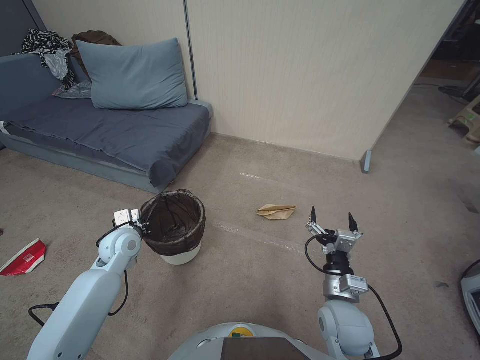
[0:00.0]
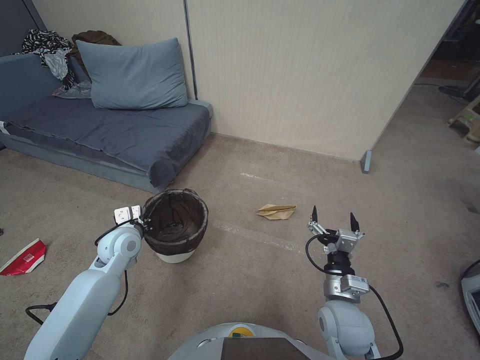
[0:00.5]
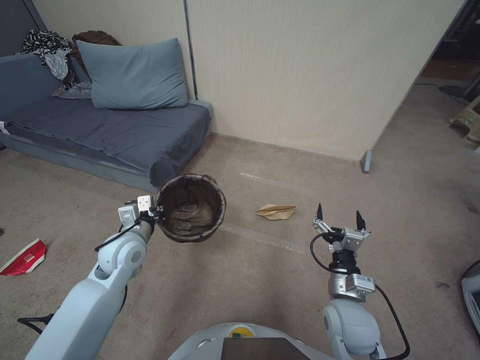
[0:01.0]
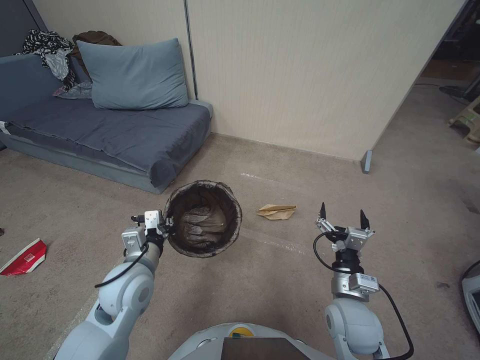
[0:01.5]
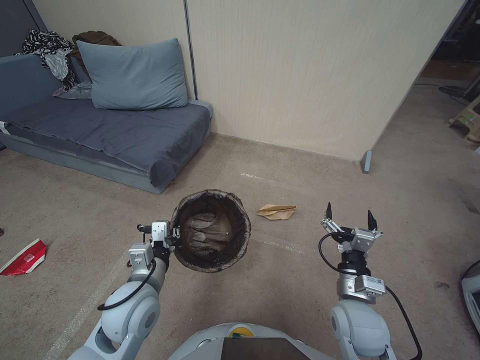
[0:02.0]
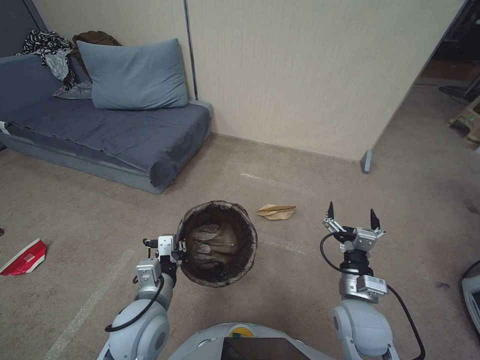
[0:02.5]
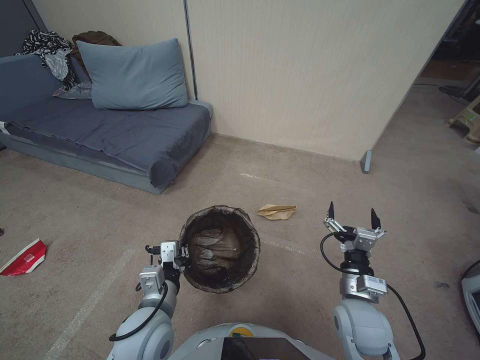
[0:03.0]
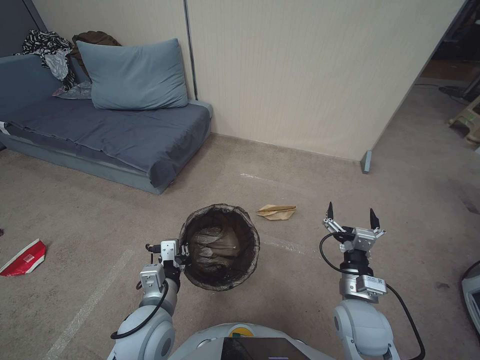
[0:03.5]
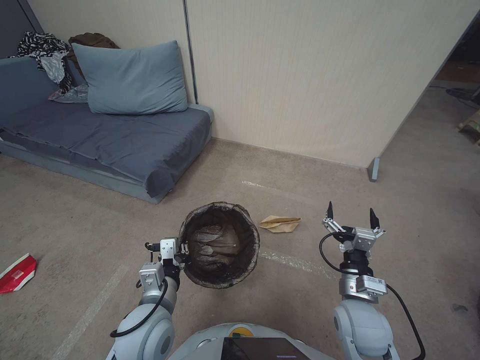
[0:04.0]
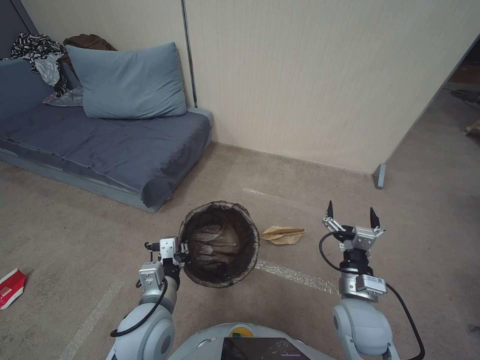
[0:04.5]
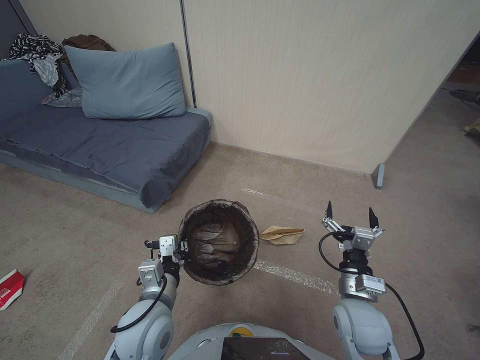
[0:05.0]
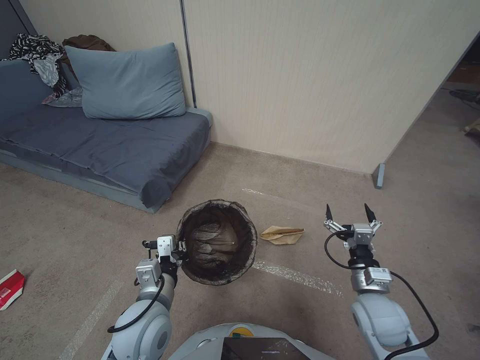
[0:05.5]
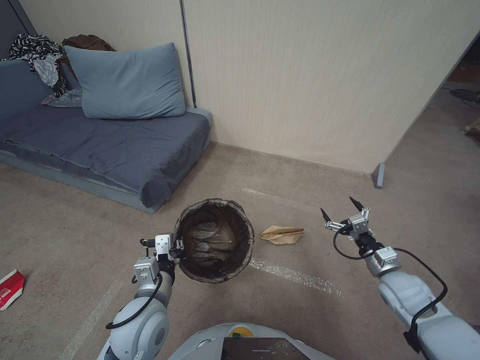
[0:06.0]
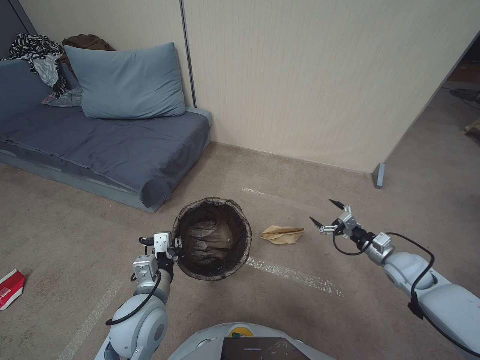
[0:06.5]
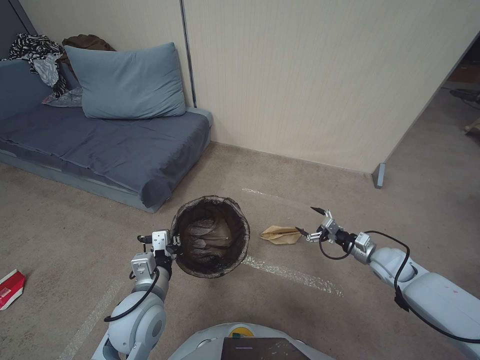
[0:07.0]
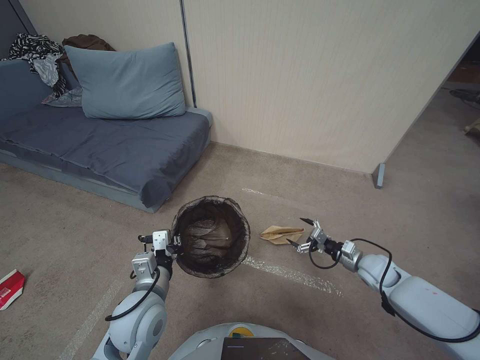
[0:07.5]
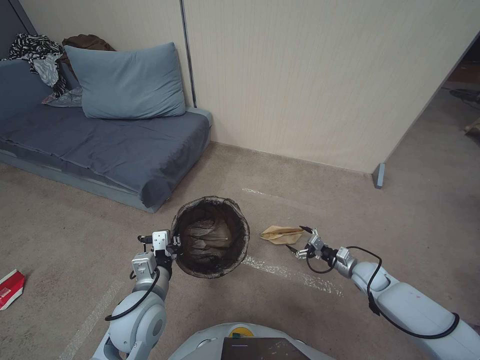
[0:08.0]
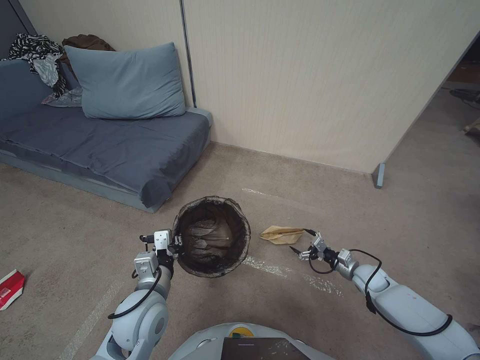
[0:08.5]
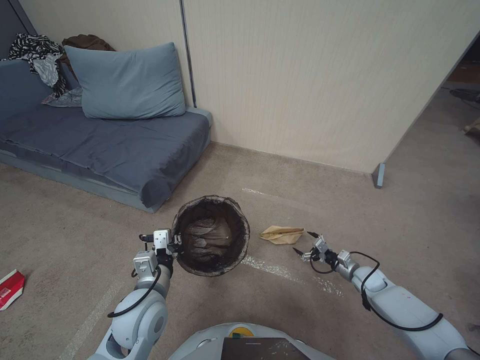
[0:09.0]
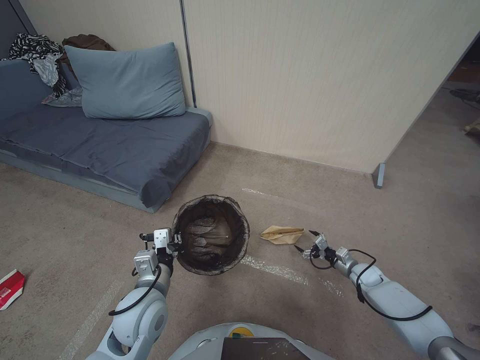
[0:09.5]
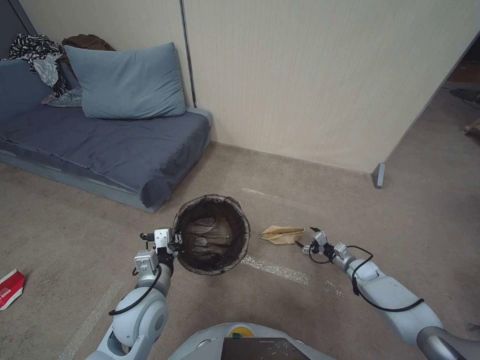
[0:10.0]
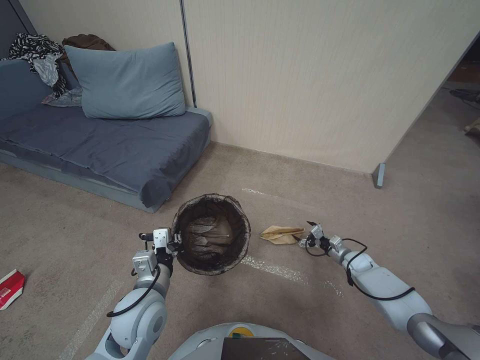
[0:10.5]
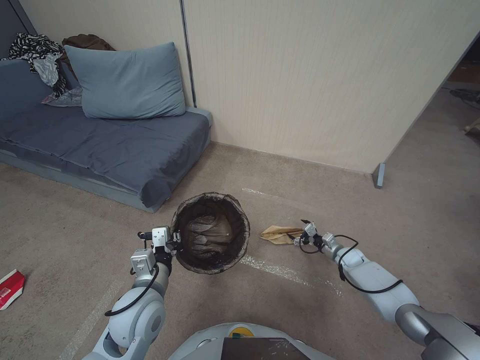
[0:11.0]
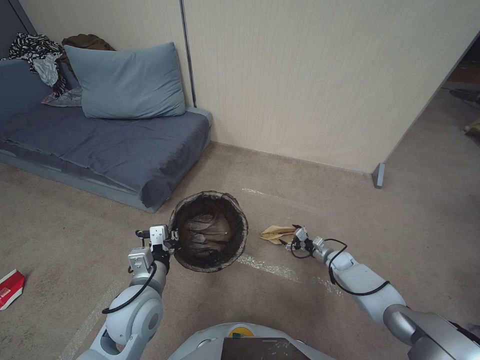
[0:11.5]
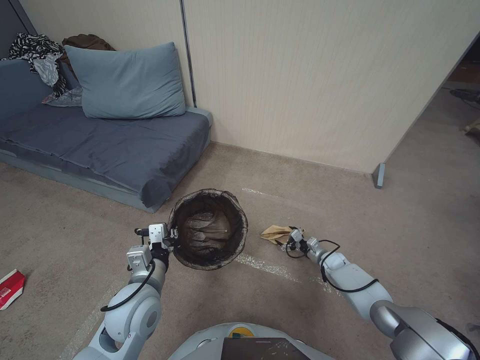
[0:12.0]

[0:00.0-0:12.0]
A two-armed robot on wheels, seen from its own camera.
Task of the whole recording: Pick up the trash bin, then pick up the garbage from the floor and place it into the trash bin.
0:00.0 to 0:02.0: The left gripper shifts some 15 cm backward and to the right.
0:02.0 to 0:04.0: The left gripper ends up approximately 5 cm from where it was.
0:04.0 to 0:06.0: The right gripper travels to the right and forward by some 15 cm.
0:06.0 to 0:08.0: The right gripper goes some 15 cm downward and forward.
0:08.0 to 0:10.0: The right gripper goes some 5 cm downward.
0:10.0 to 0:12.0: The right gripper is displaced to the left by about 5 cm.

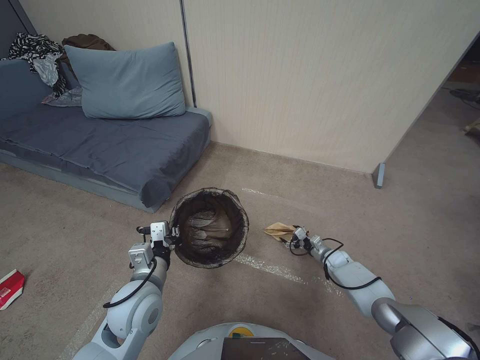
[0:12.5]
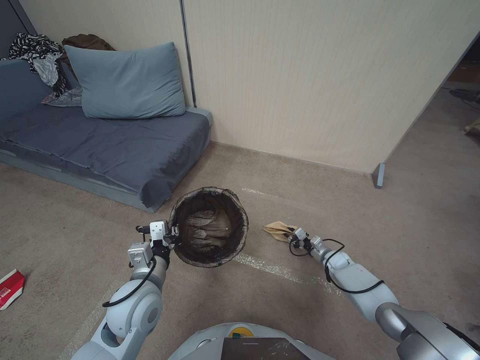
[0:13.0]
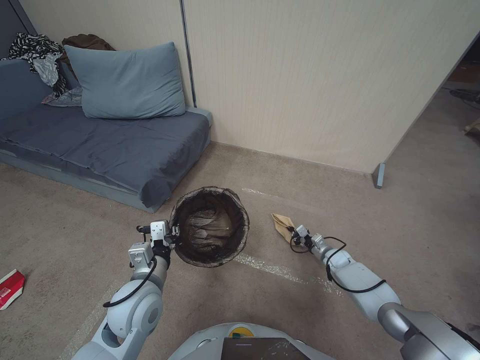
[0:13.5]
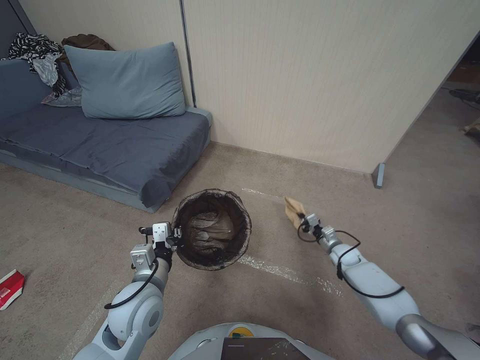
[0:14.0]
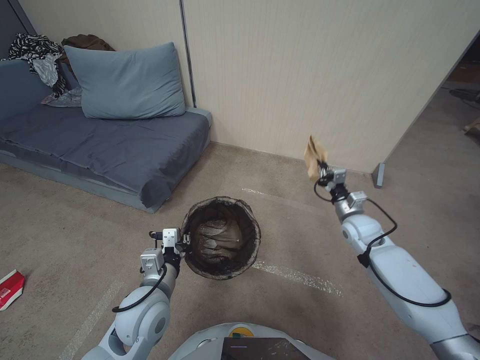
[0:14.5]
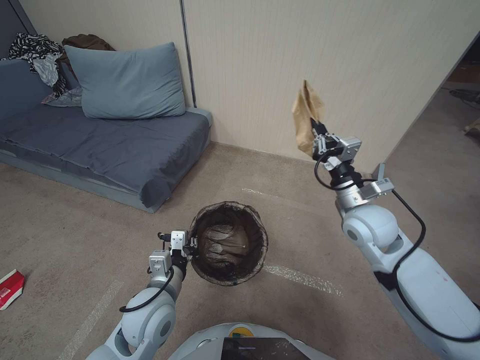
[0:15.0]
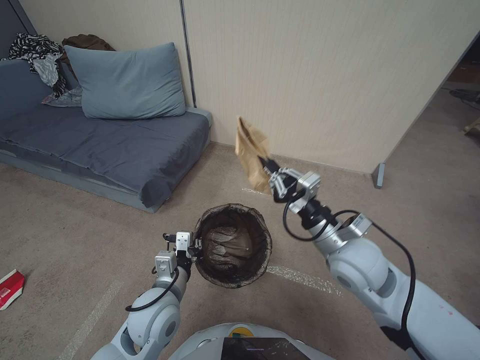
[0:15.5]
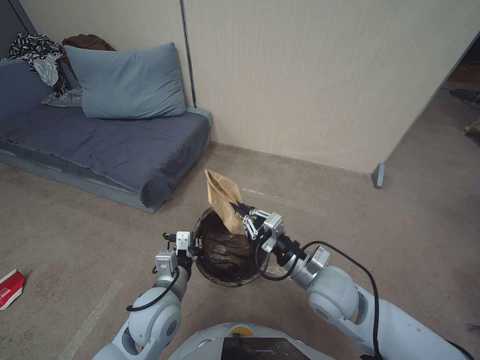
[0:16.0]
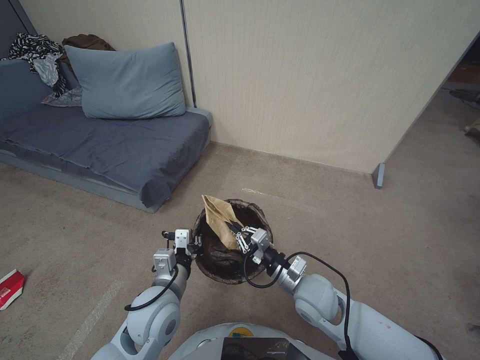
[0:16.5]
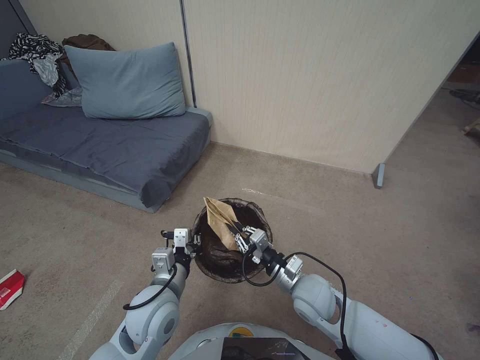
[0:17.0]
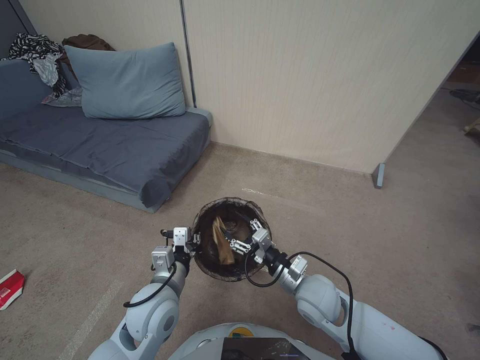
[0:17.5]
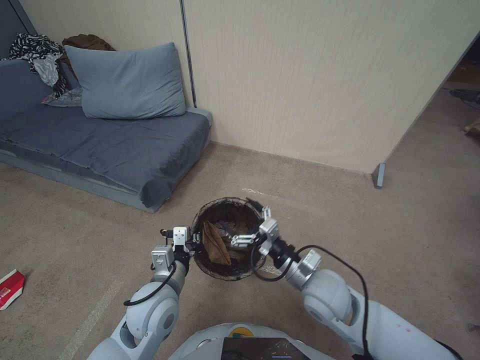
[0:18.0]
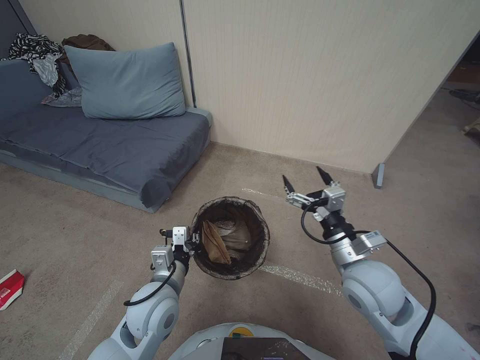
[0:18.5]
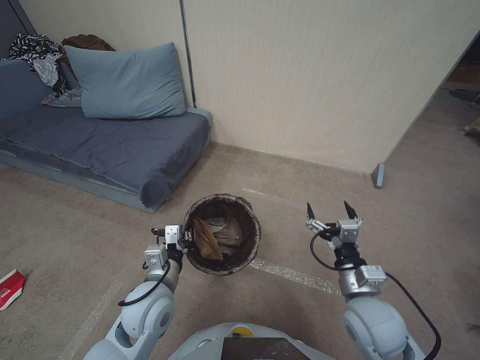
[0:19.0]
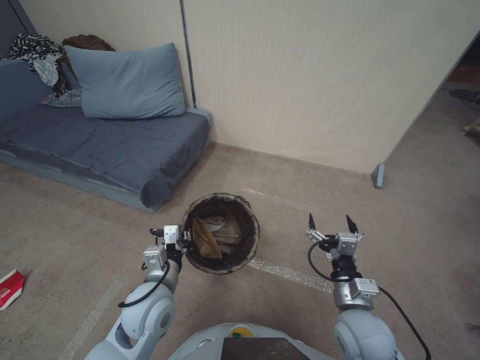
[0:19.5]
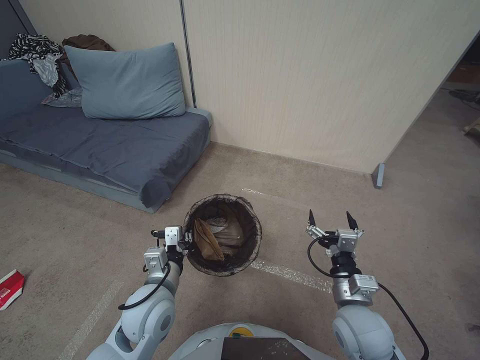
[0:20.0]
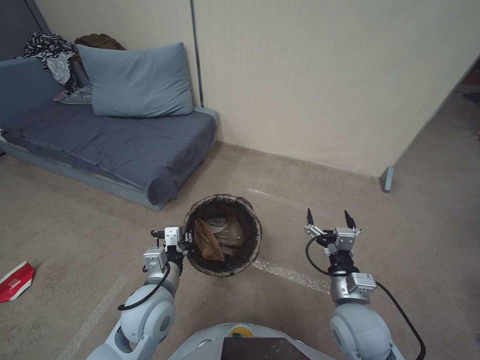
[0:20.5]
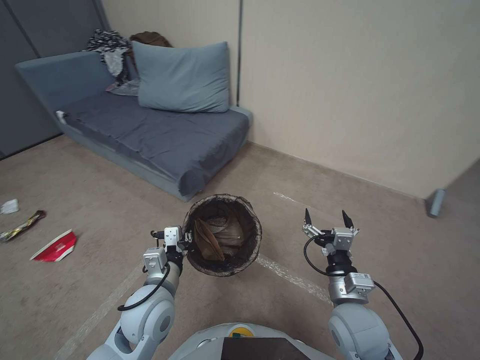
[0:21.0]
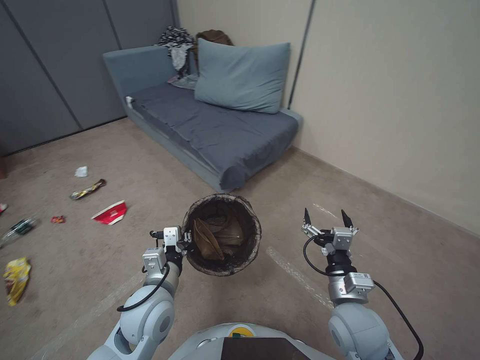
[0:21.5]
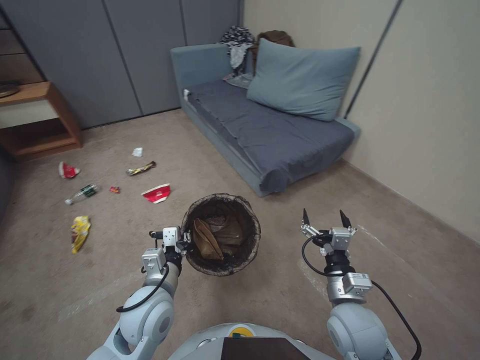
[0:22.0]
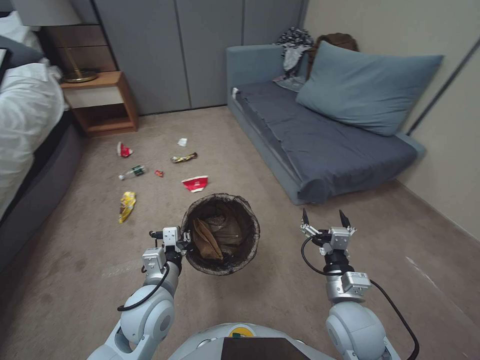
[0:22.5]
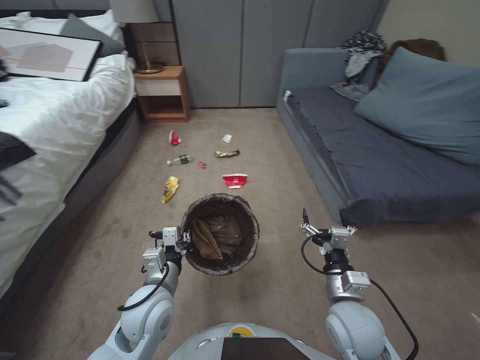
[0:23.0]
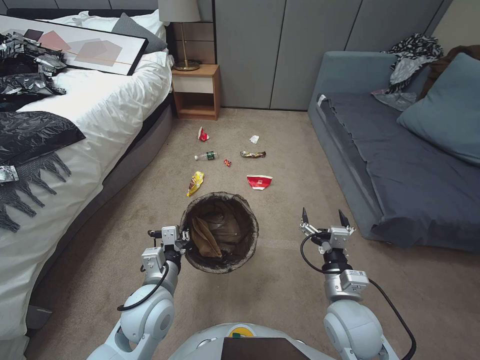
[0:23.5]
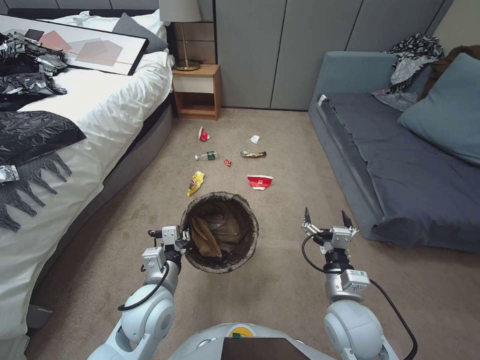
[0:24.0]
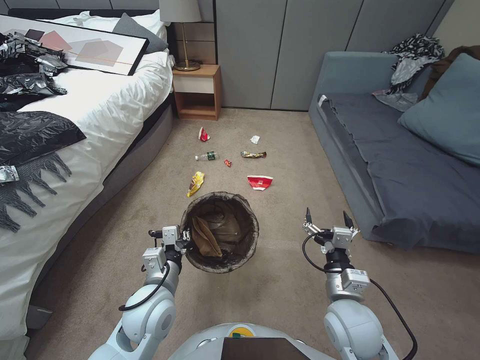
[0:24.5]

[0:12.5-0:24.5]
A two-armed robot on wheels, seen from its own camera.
Task of the whole recording: Pick up the trash bin, then pick up the garbage from the floor and place it into the trash bin.
0:12.5 to 0:14.5: The right gripper moves upward, roughly 20 cm, and closes up.
0:14.5 to 0:16.5: The right gripper is displaced to the left and backward by approximately 25 cm, and travels upward and back again, about 20 cm each way.
0:16.5 to 0:18.5: The right gripper travels upward and to the right by approximately 10 cm, and opens.
0:18.5 to 0:20.5: The right gripper shifts roughly 10 cm downward and backward.

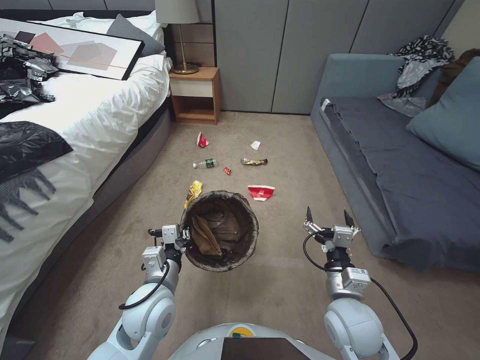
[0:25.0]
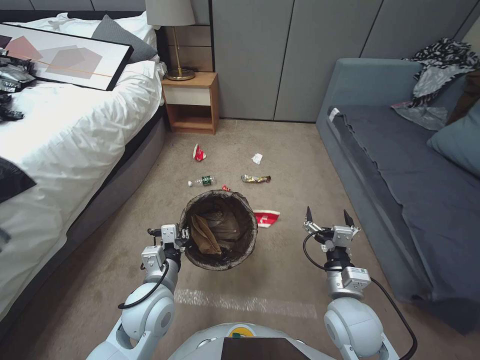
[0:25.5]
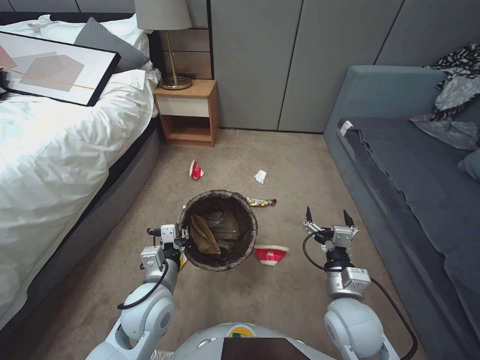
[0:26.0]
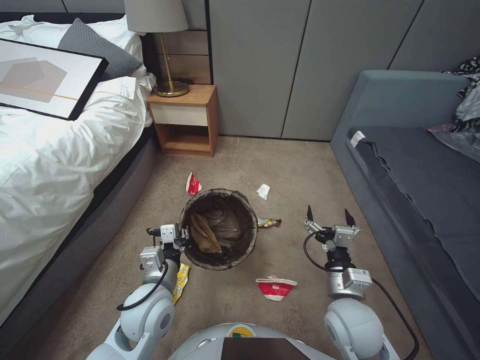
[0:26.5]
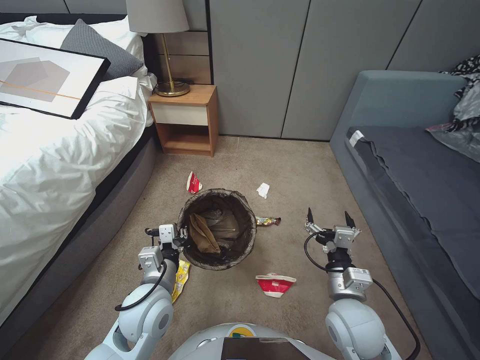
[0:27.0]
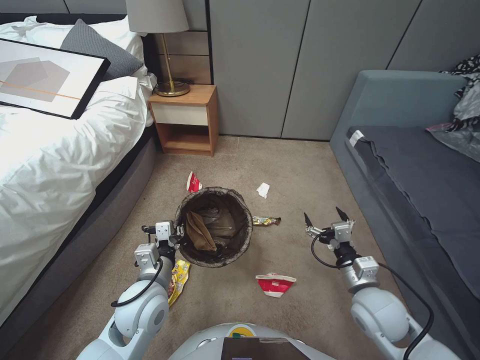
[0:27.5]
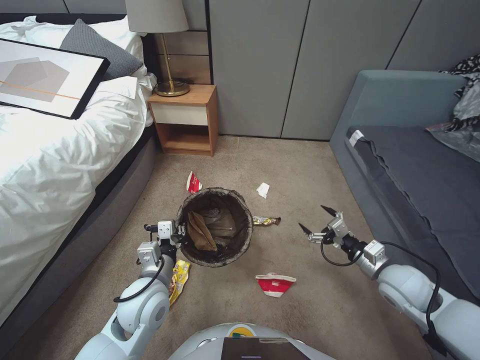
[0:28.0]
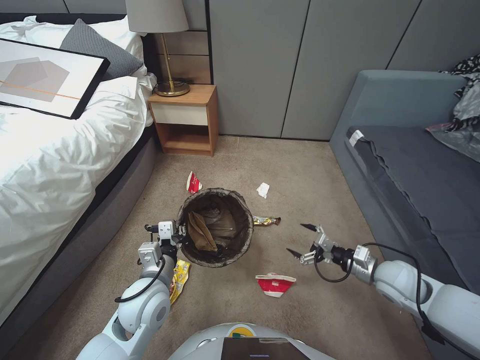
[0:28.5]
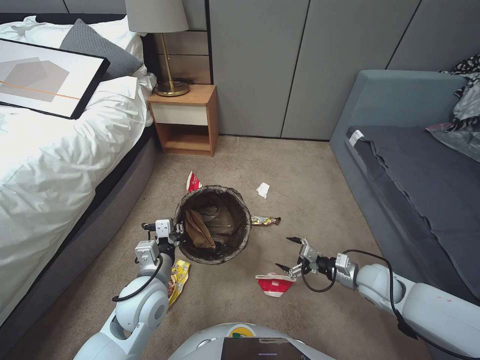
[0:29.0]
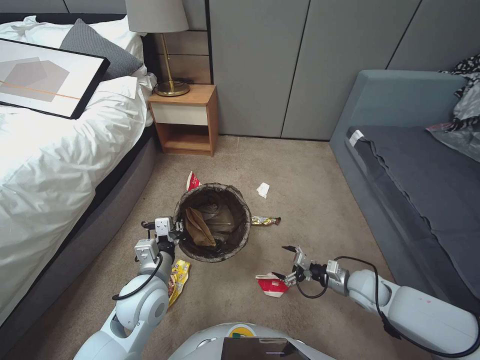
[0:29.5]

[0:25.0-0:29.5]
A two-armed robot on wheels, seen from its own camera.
Task of the whole recording: Pick up the trash bin, then pick up the garbage from the floor and place it into the trash bin.
0:27.0 to 0:29.5: The right gripper moves to the right, downward and forward, approximately 20 cm.
